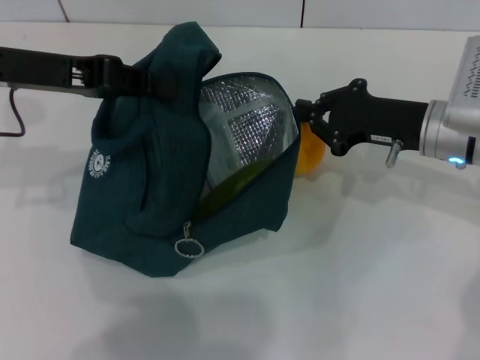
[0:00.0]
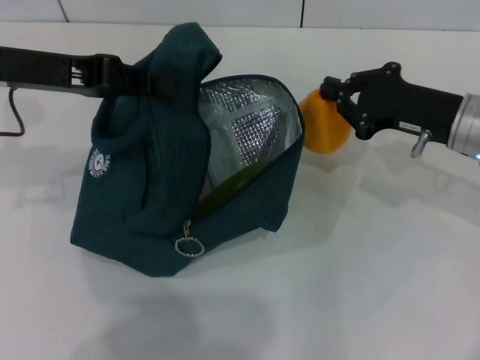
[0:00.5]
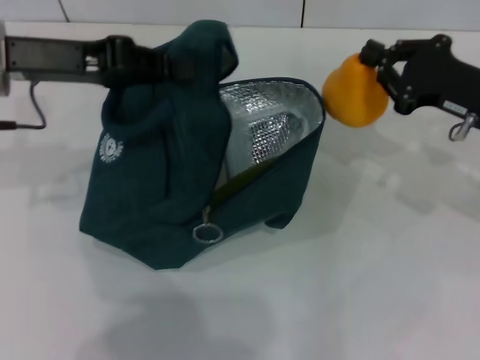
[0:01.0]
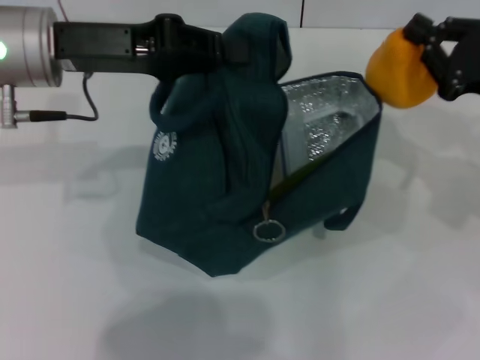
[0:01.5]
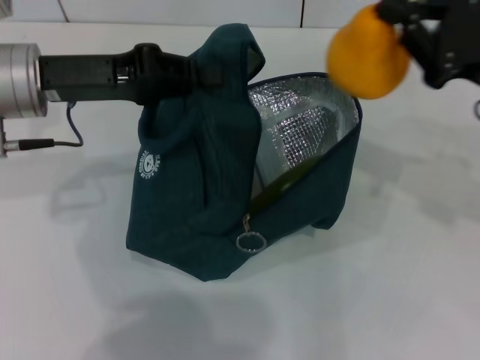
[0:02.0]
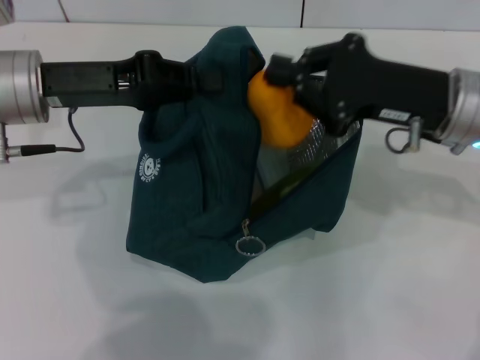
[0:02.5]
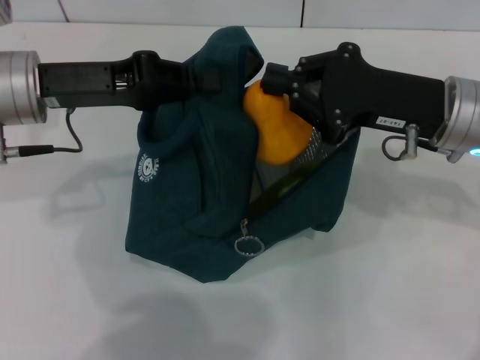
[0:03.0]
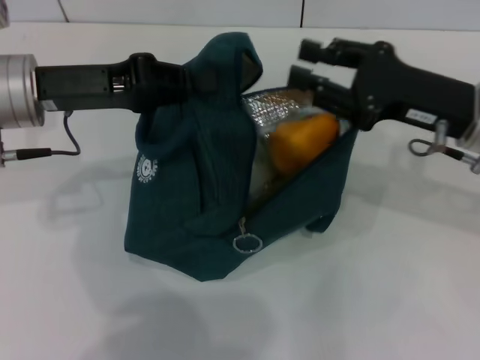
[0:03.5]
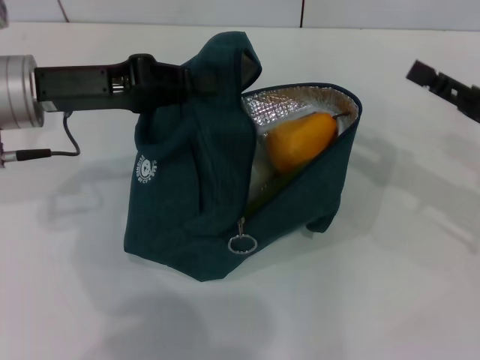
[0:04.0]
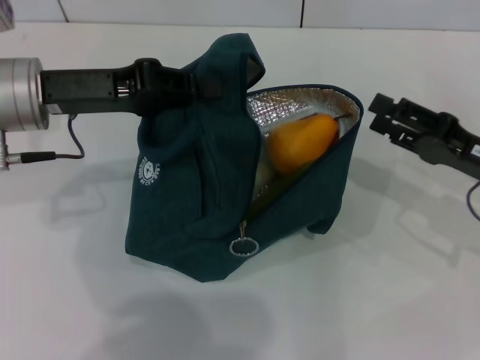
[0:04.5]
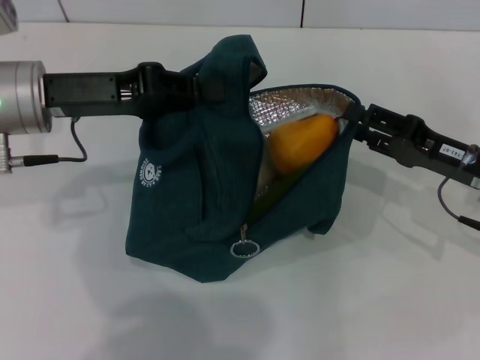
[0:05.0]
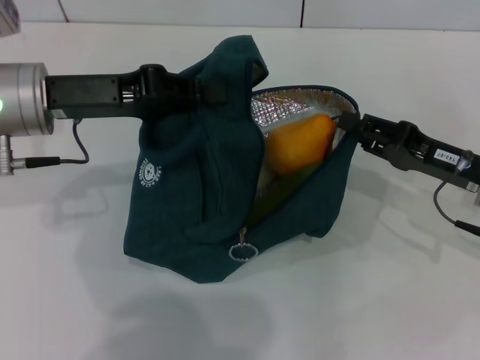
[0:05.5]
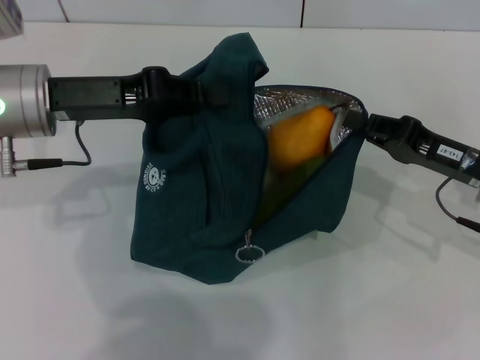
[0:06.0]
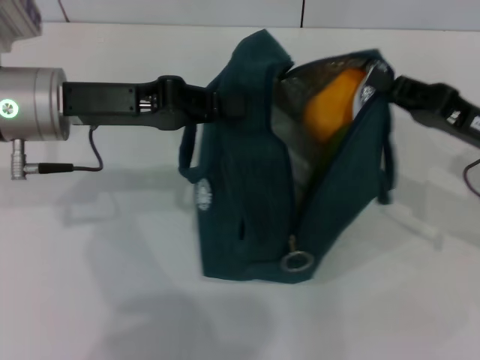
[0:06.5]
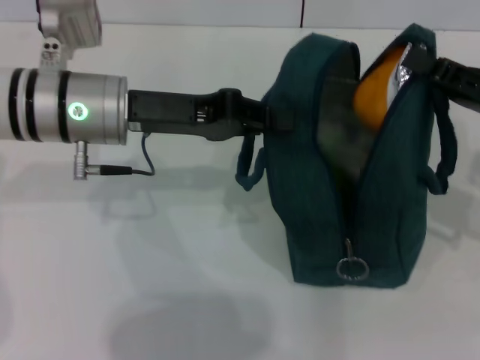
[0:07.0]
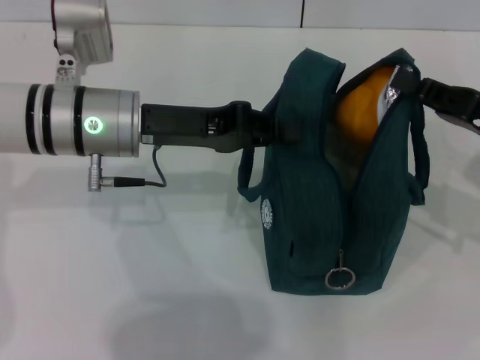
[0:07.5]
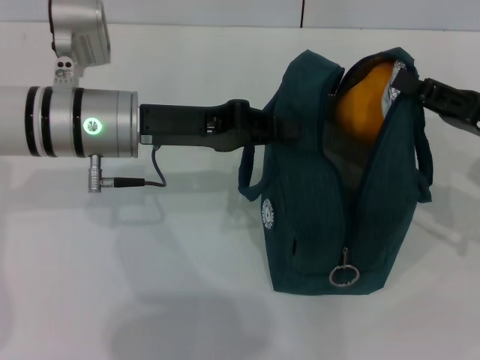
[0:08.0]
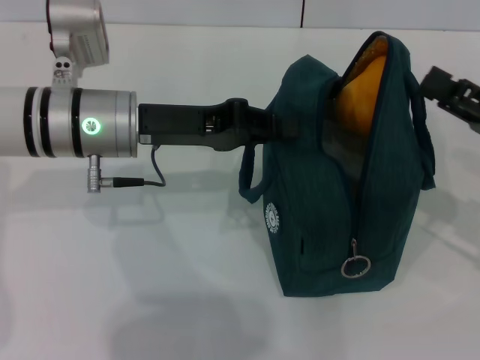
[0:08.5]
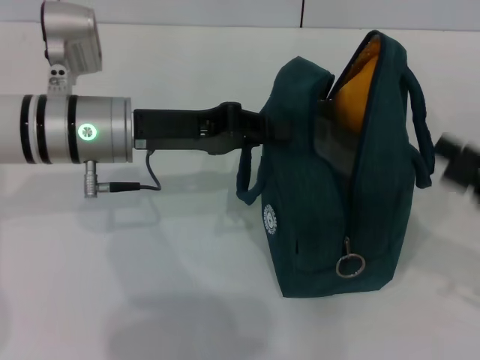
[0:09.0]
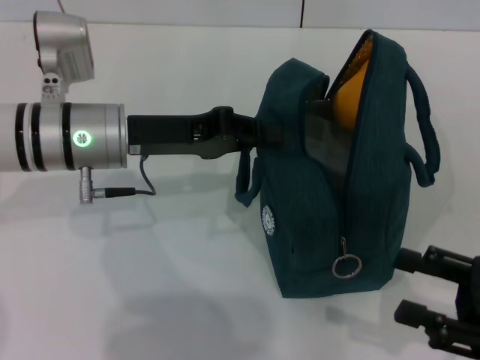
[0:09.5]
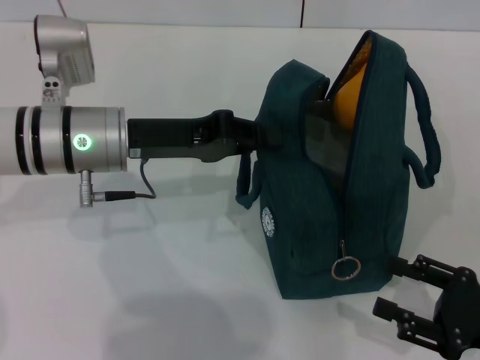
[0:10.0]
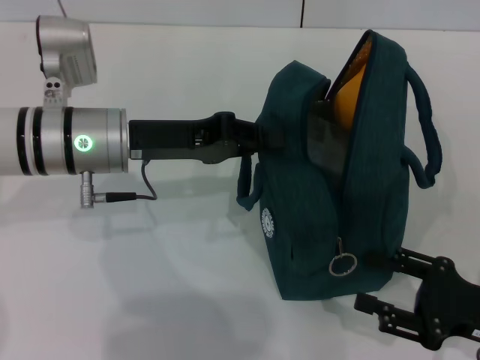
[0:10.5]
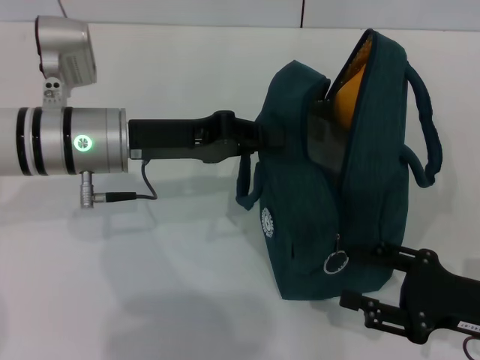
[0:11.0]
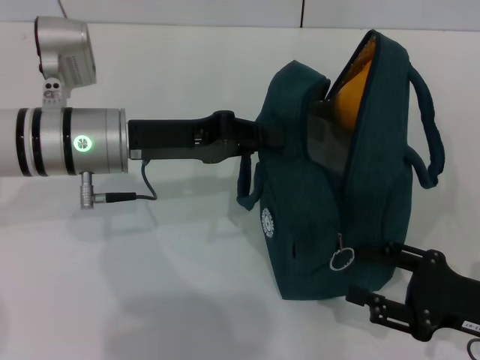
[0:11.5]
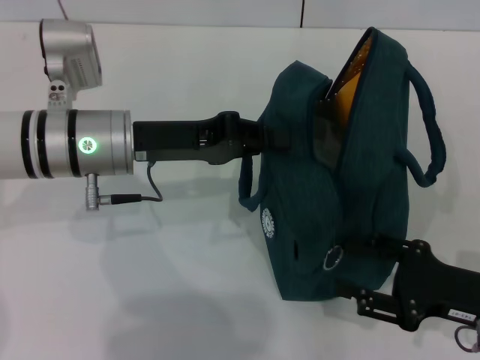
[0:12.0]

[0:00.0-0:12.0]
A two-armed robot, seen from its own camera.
Step, 0:00.0 to 0:03.5: Secure the lunch bag with your left hand.
Step, 0:04.0 to 0:08.0: Hold the lunch bag with your right hand.
0:00.0 to 0:02.0: The right gripper shifts roughly 10 cm upward and to the right.
0:02.0 to 0:04.0: The right gripper travels downward by about 5 cm, and opens up.
0:04.0 to 0:06.0: The right gripper moves about 5 cm.
0:06.0 to 0:08.0: The left gripper moves to the right, about 5 cm; the right gripper ends up about 5 cm from where it was.
0:08.0 to 0:10.0: The right gripper heads backward and downward, covering about 15 cm, and opens up.
0:10.0 to 0:12.0: The grippers move only a little.

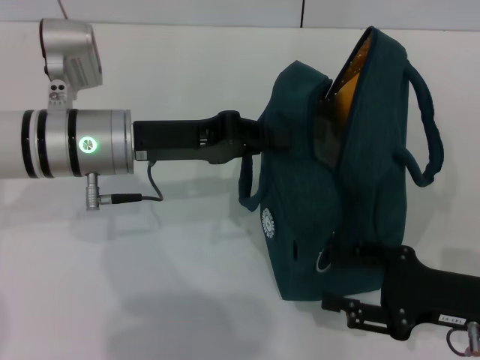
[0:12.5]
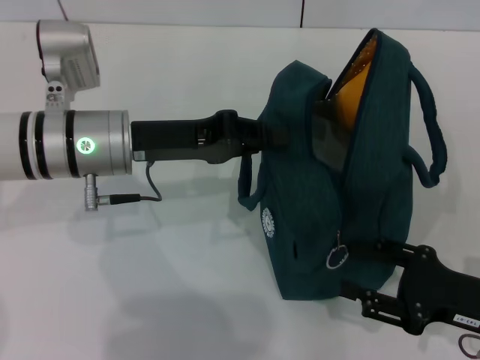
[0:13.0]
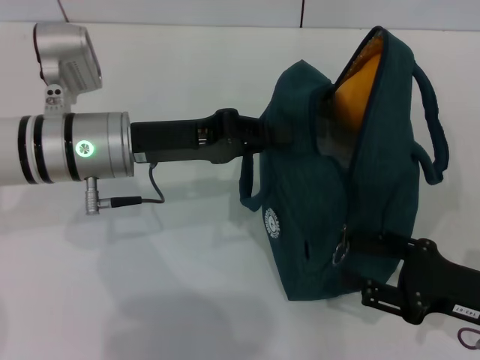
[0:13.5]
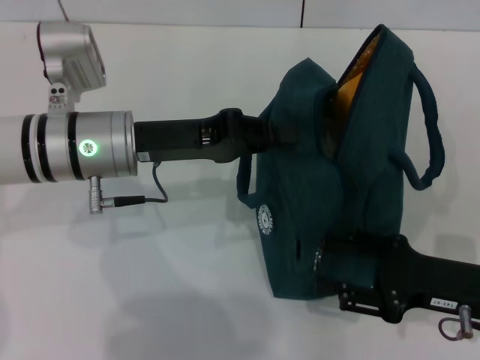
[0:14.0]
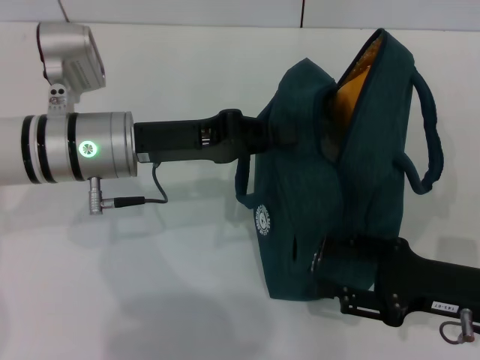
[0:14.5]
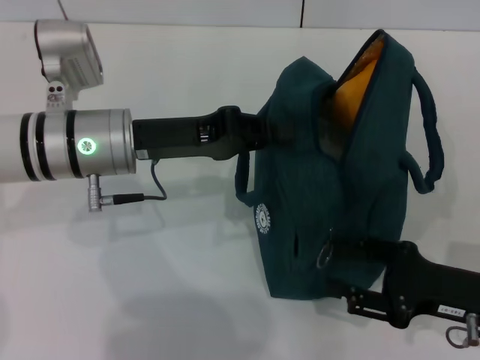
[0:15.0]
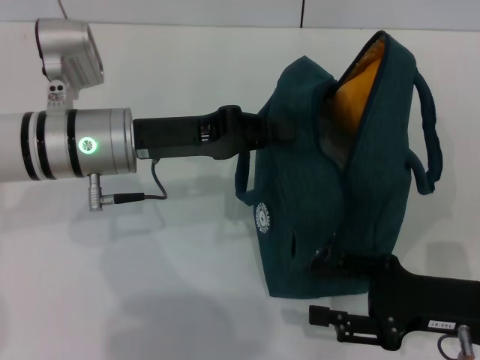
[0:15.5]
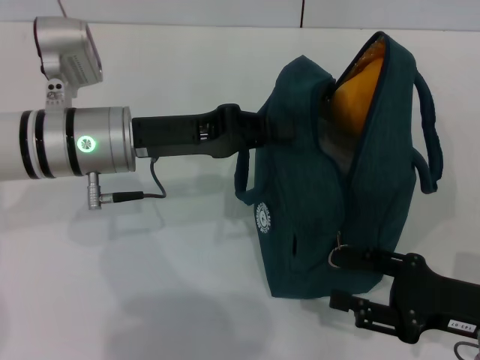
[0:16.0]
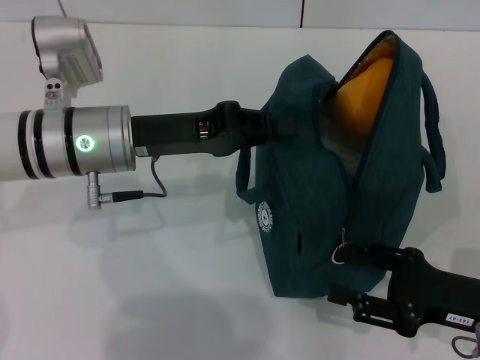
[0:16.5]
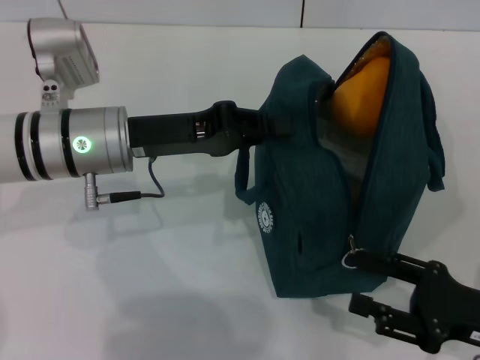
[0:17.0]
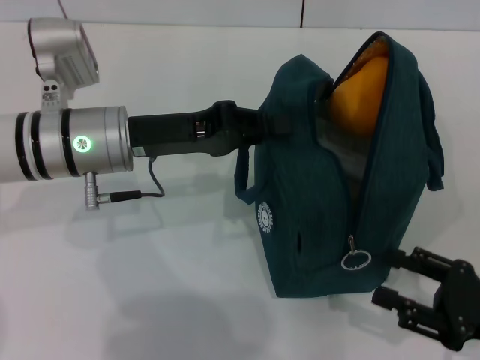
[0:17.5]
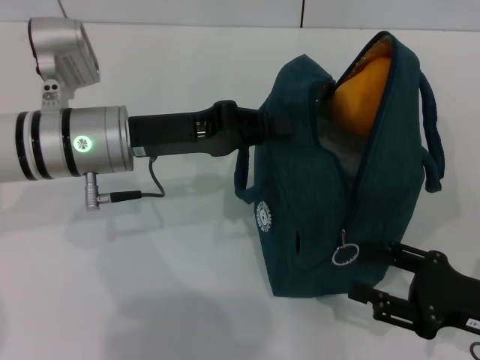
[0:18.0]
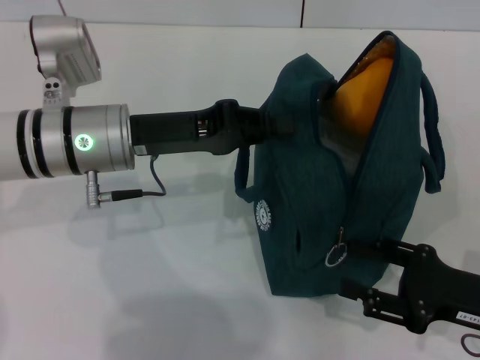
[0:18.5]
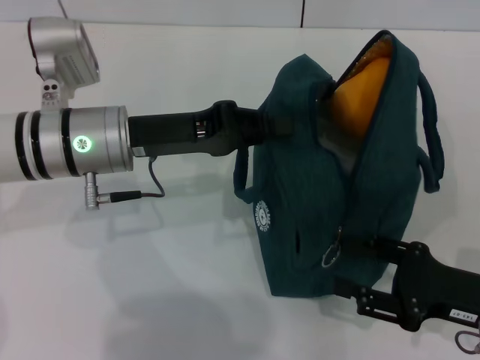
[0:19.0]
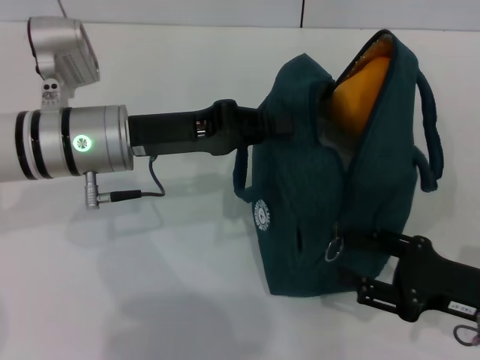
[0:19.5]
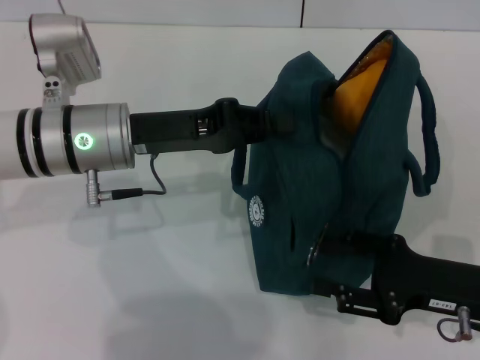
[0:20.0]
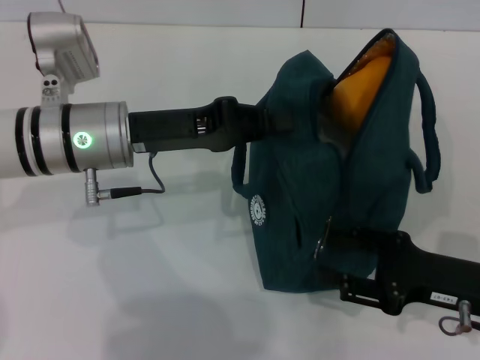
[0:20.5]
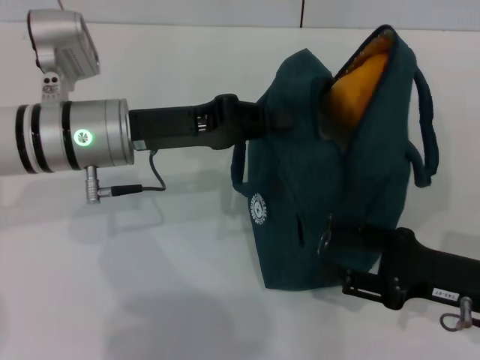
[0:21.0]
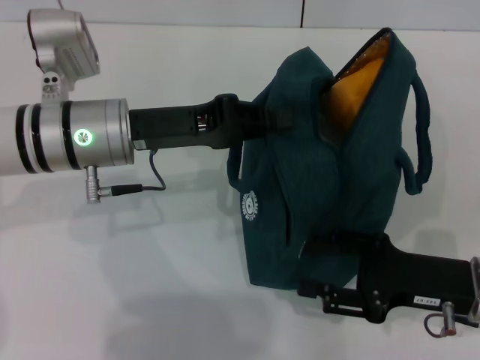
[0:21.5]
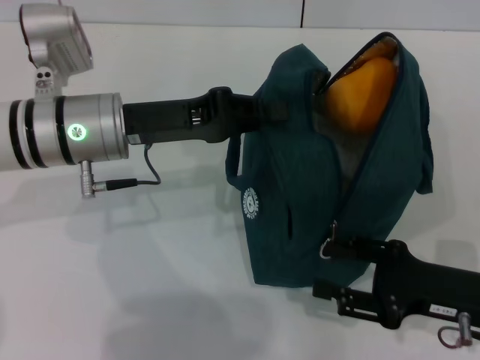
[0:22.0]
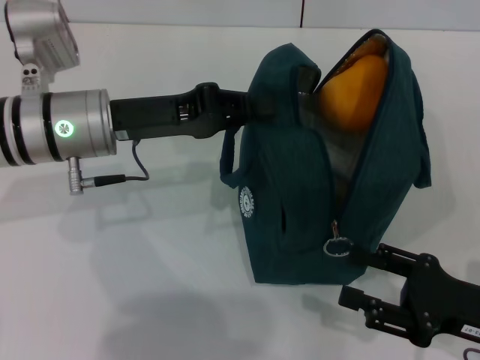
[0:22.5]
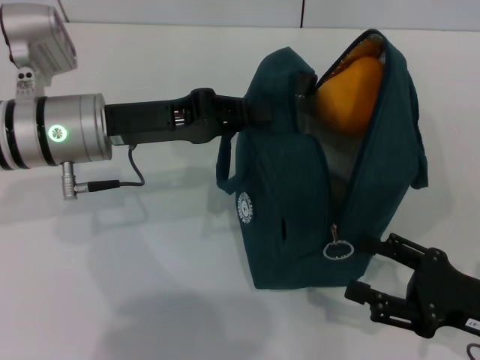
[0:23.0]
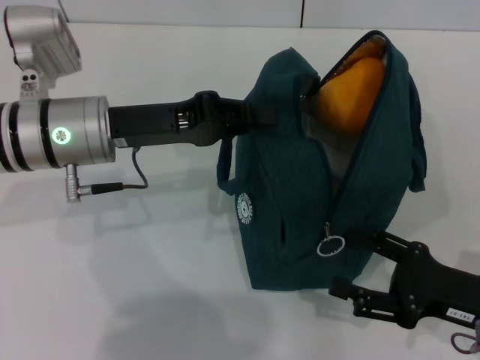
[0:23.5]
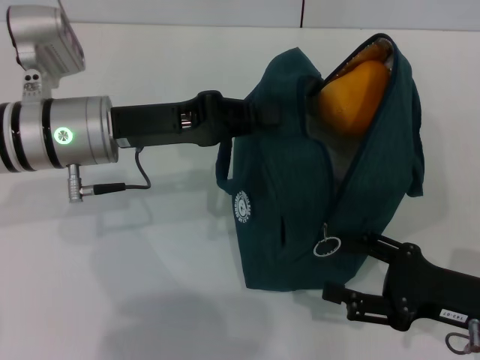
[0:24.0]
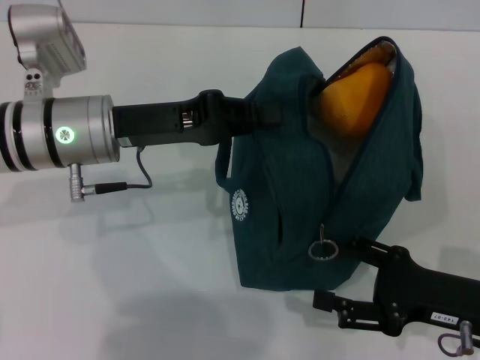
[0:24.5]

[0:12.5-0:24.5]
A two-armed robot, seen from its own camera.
0:12.5 to 0:20.5: The grippers make only small movements.
0:22.5 to 0:24.5: There are only small adjustments of the grippers.

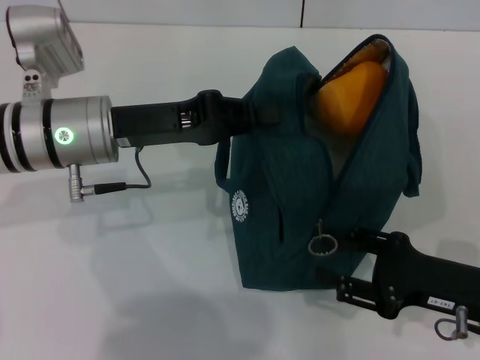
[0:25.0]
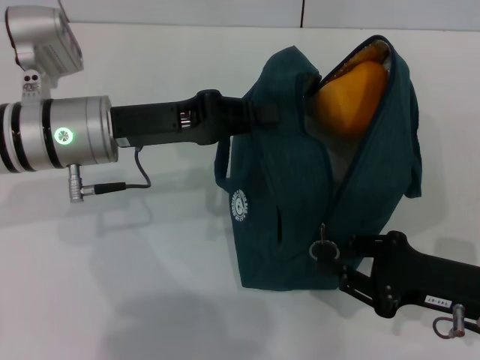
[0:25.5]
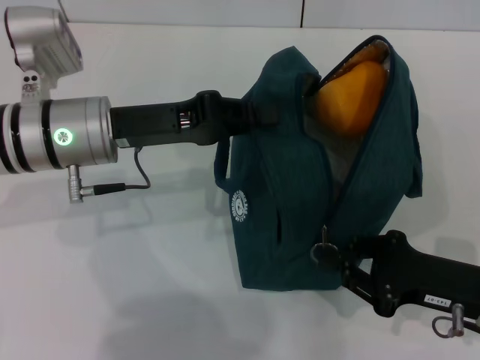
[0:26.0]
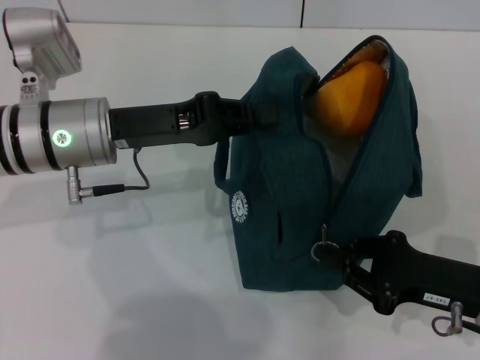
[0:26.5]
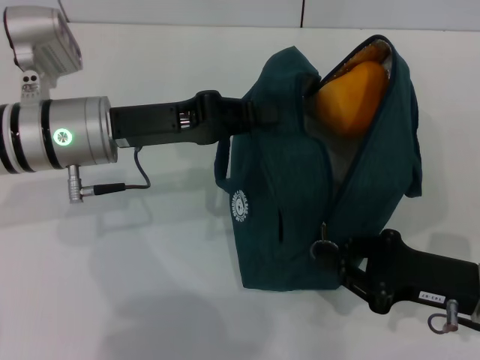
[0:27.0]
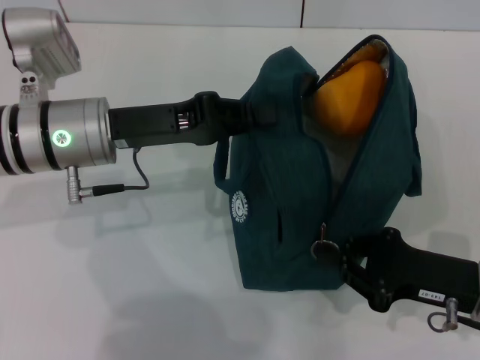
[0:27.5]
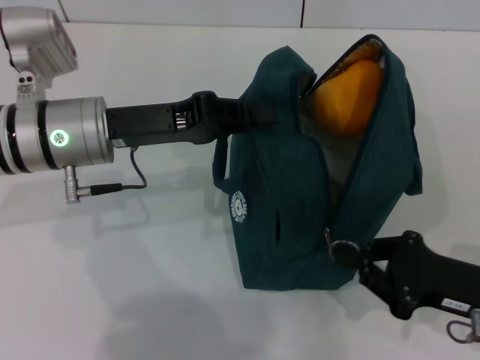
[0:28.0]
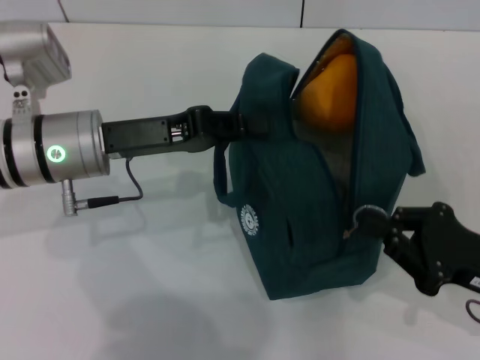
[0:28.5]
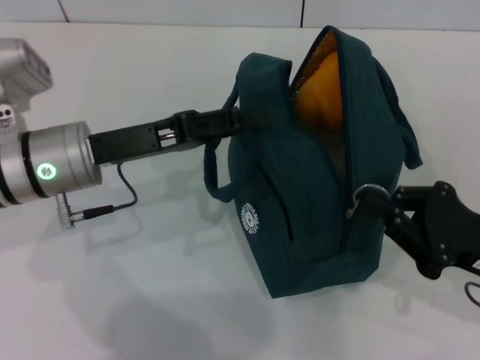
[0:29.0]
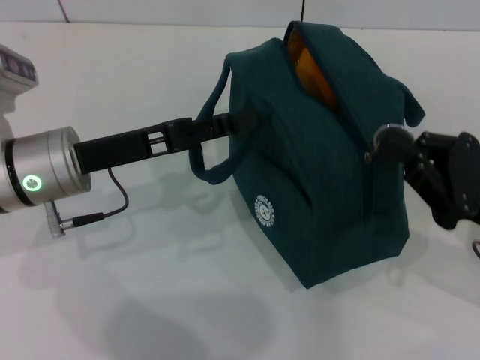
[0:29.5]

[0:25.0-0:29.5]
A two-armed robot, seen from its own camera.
Step, 0:25.0 to 0:29.0: Hold the lunch bag with your left hand.
0:25.0 to 0:27.0: The right gripper closes.
0:27.0 to 0:29.5: The left gripper opens up. Meanwhile the right gripper travels upward by about 5 cm.
